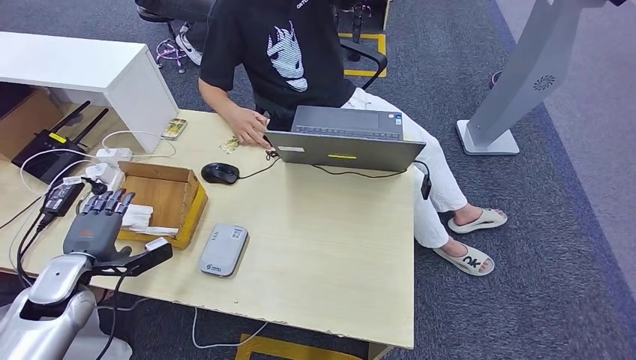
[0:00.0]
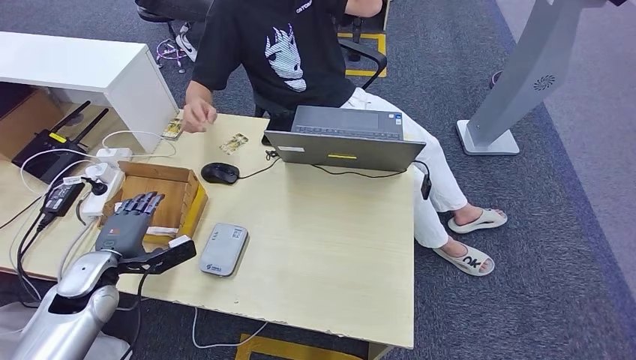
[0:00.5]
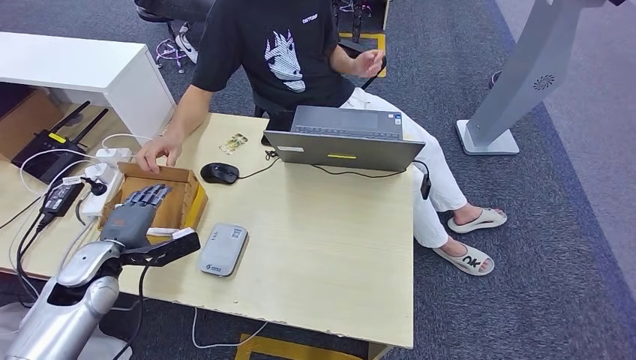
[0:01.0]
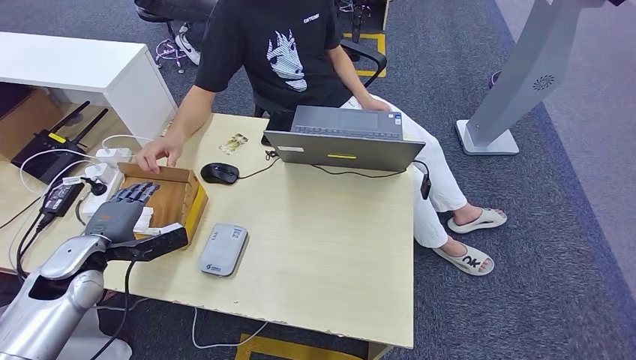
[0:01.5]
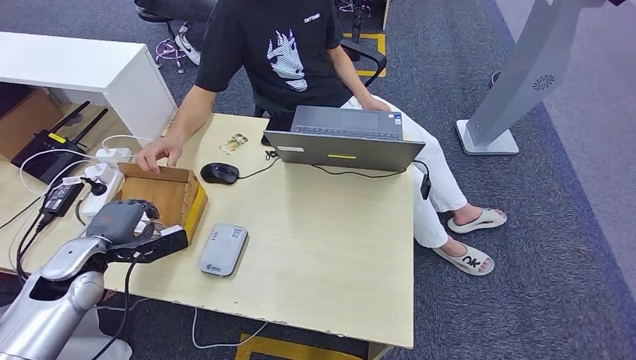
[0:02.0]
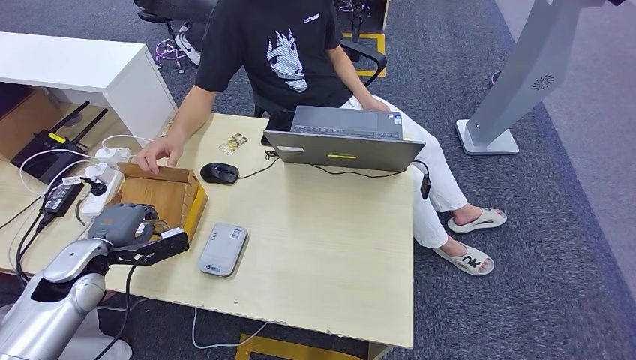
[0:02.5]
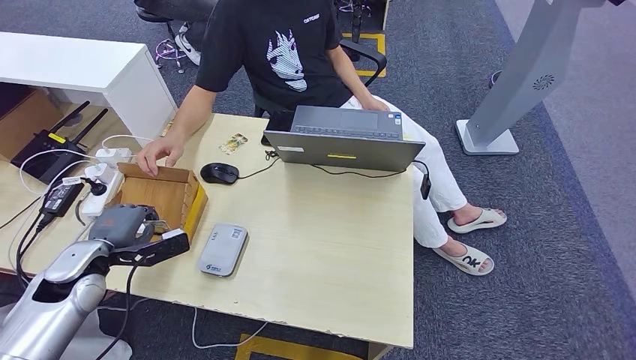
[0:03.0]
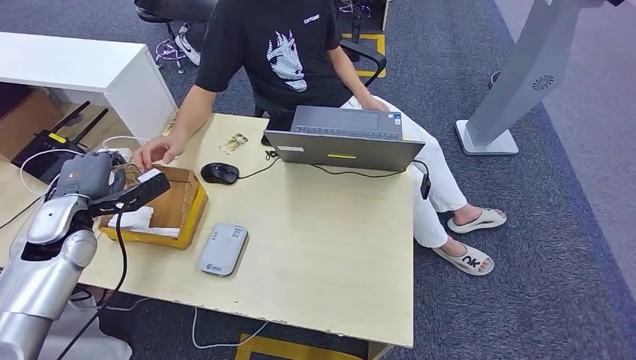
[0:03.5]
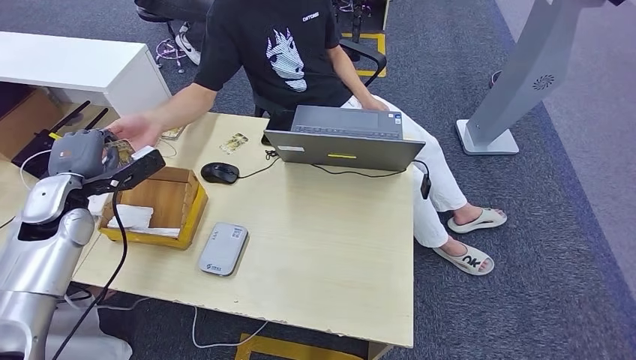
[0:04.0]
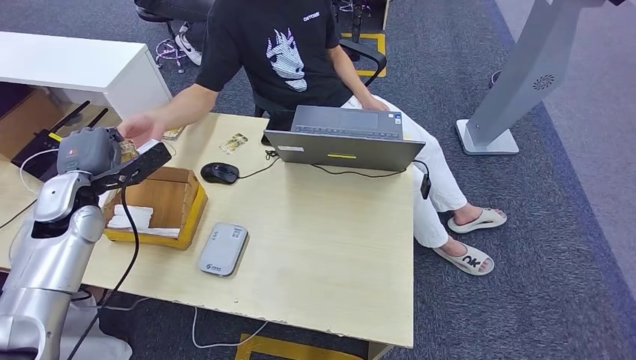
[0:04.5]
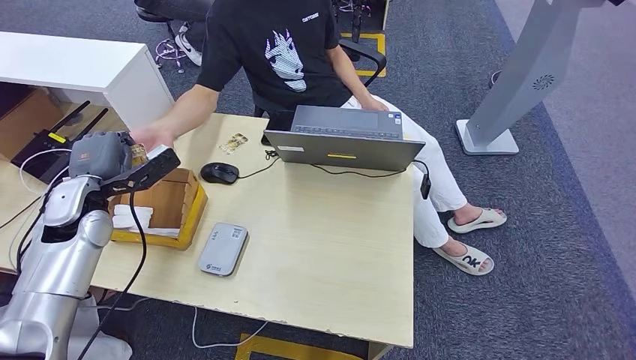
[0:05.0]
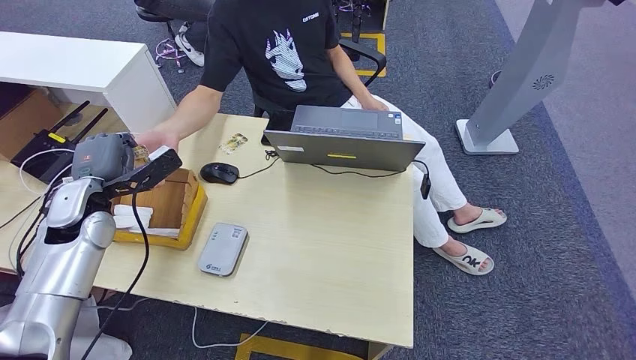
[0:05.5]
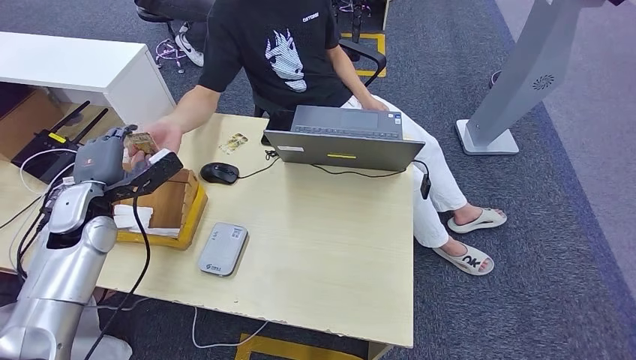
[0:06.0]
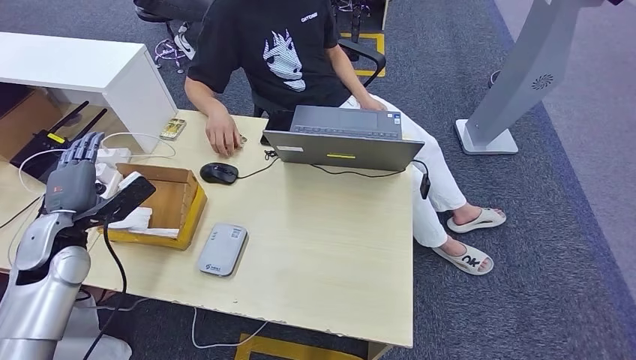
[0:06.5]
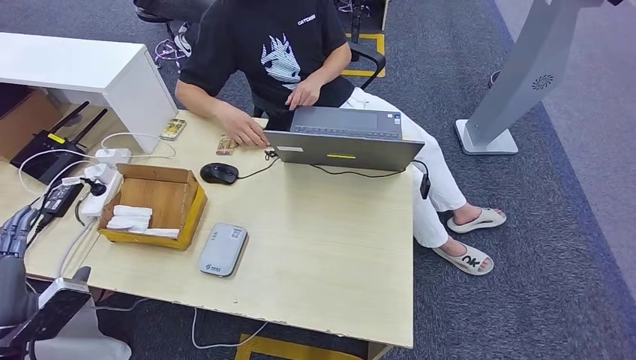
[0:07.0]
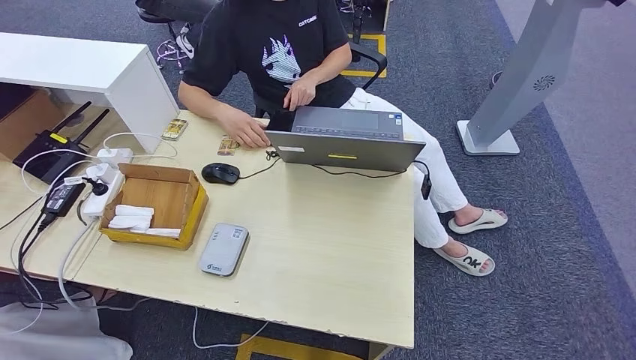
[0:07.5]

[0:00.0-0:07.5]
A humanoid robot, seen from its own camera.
Step, 0:00.0 to 0:03.0: Pick up the room key from the key card box.
Step, 0:03.5 to 0:07.5: Hand the room key to the person.
0:00.0 to 0:02.0: The hands move only a little.
0:02.0 to 0:04.0: The left hand shifts approximately 10 cm upward and forward.
0:04.0 to 0:05.5: The hands stay close to where they were, moving slightly.
0:05.5 to 0:07.5: The left hand moves backward, about 35 cm.
